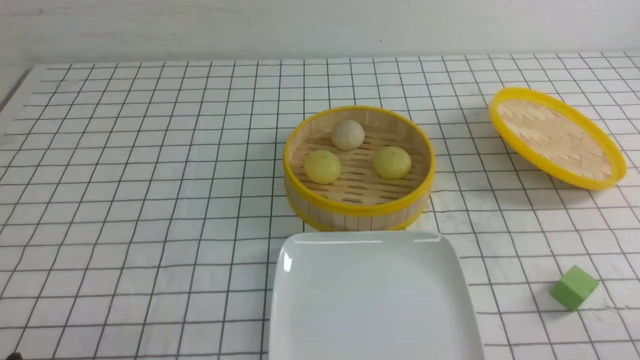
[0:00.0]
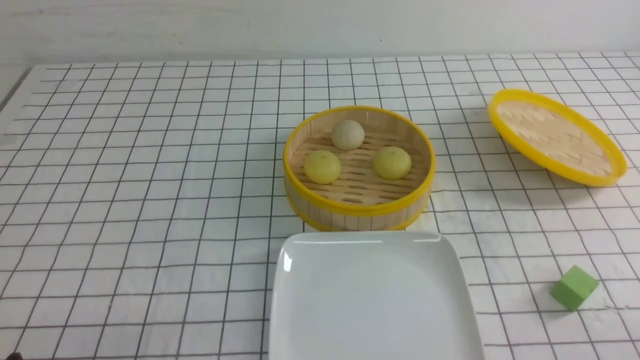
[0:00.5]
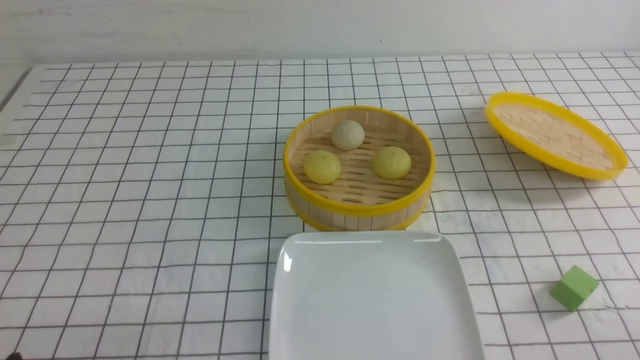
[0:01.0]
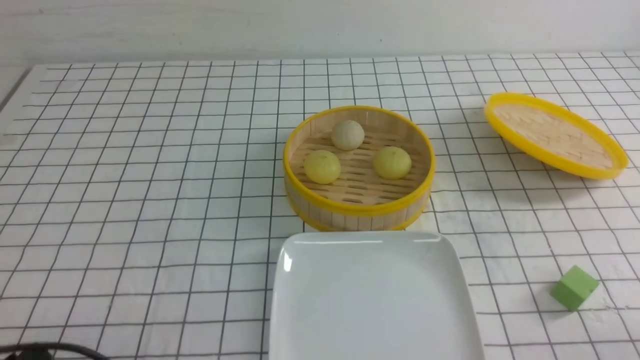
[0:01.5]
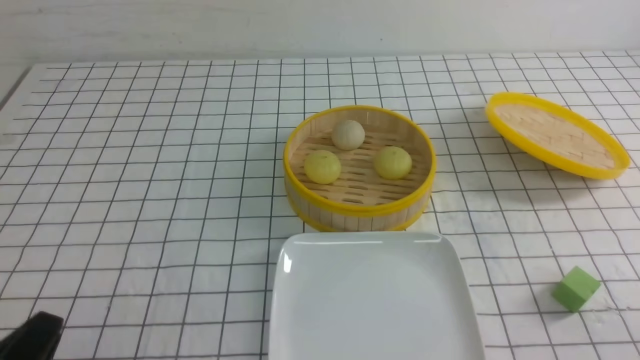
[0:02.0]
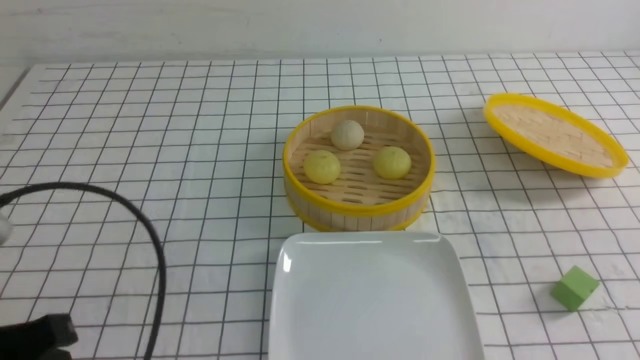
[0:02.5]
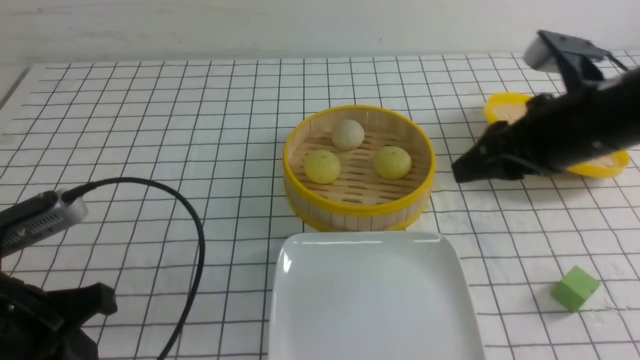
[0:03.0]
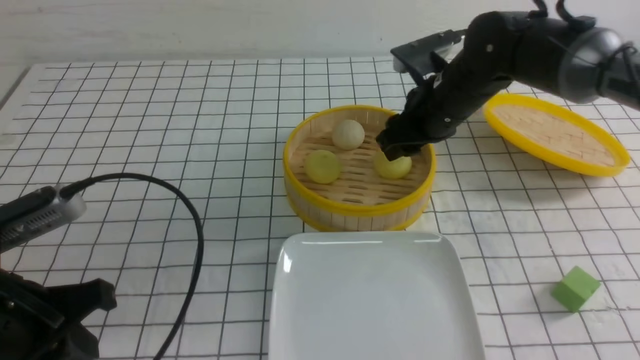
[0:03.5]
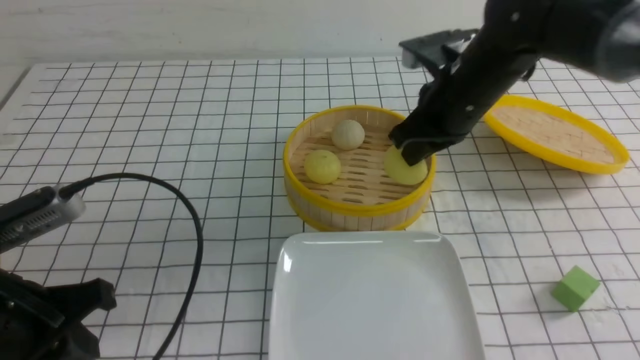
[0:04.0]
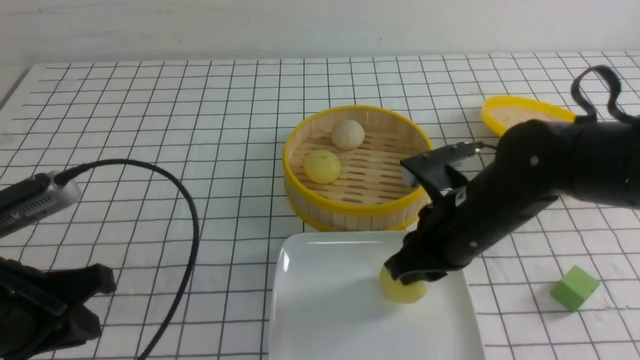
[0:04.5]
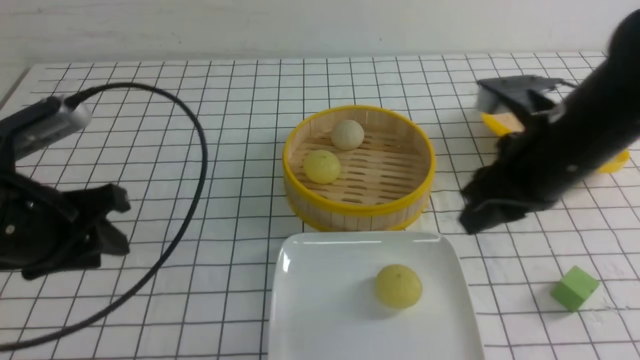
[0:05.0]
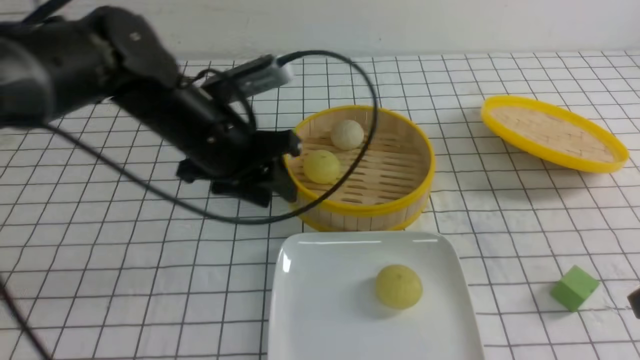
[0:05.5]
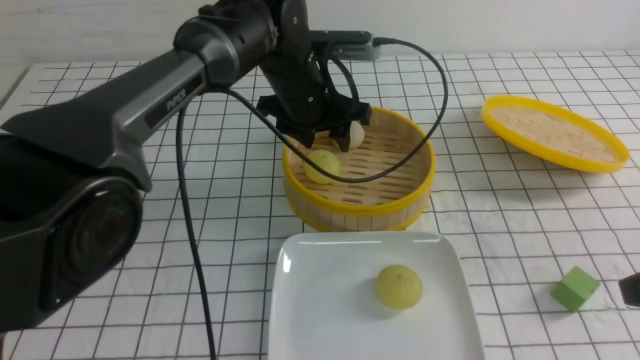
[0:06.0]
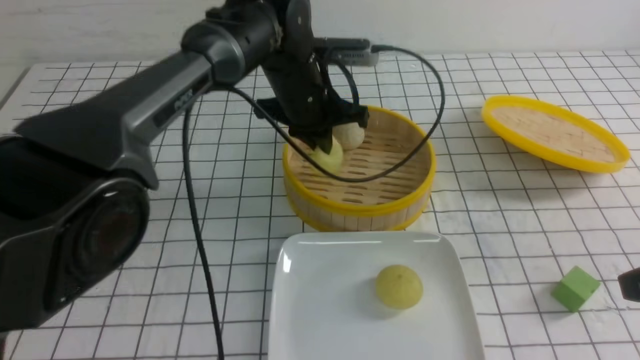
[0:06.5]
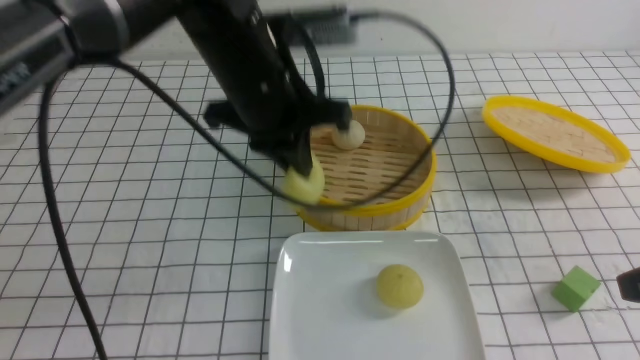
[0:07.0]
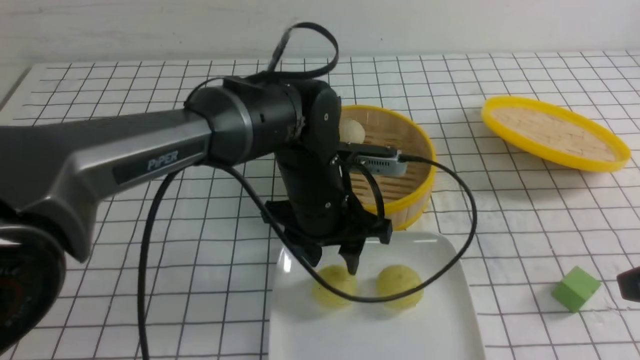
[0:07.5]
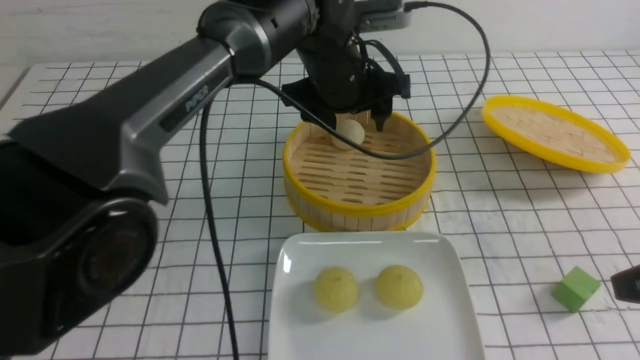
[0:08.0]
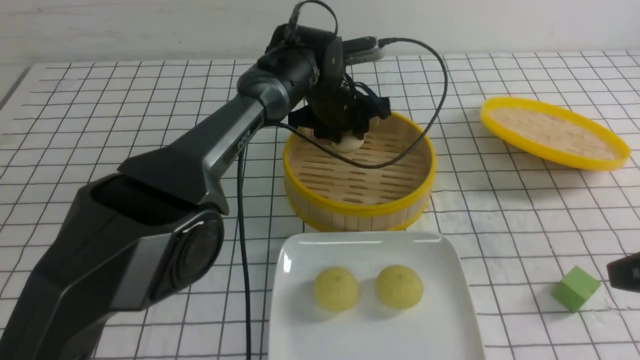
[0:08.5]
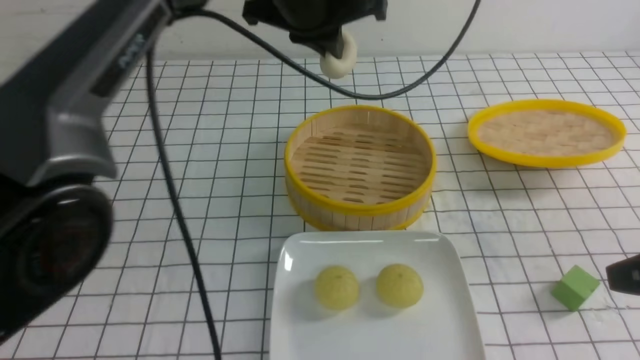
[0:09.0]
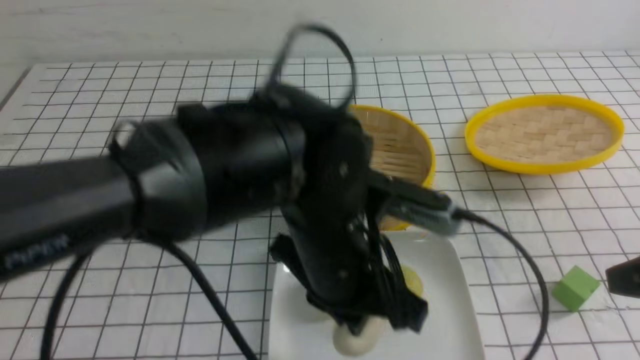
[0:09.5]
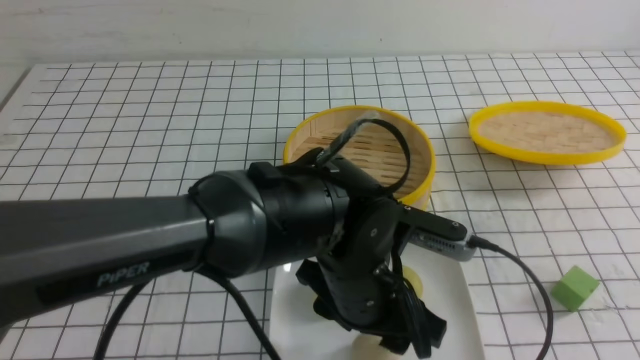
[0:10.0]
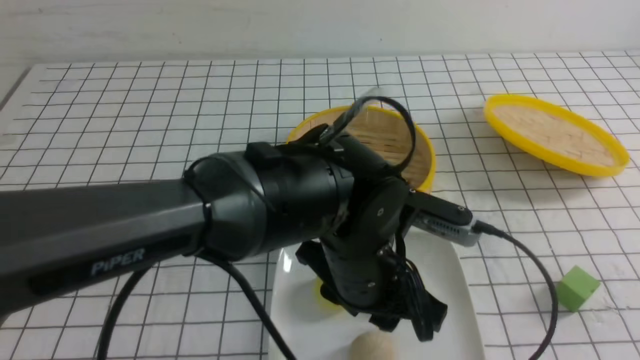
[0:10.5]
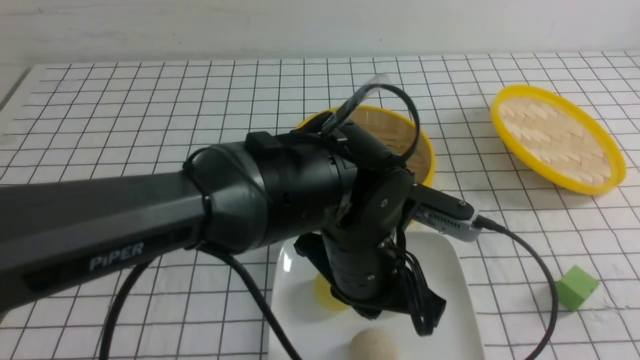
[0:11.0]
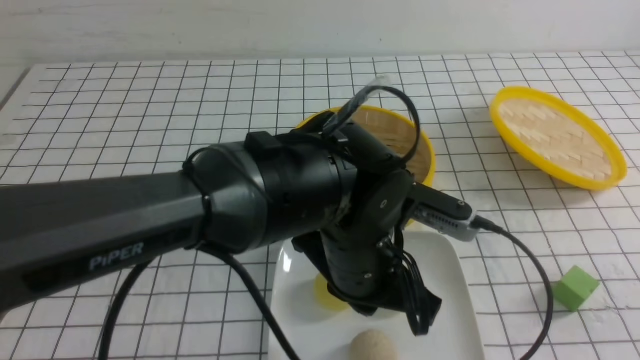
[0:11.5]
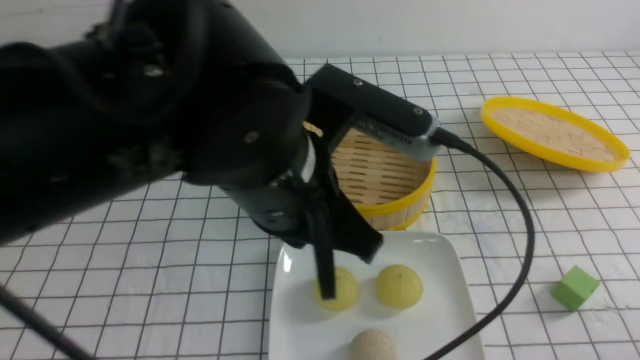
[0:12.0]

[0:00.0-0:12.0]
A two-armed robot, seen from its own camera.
Step, 0:00.0 to 0:03.5: use the right arm to grab the steamed stuffed bun that is closest to it.
Step, 0:04.0 to 0:04.5: use the right arm to put the steamed stuffed bun into the plate.
Step, 0:05.0 to 0:06.0: use the left arm to grab the steamed stuffed bun that is closest to it.
Step, 0:07.0 to 0:07.5: use the left arm to put the steamed stuffed bun into the plate.
Step, 0:08.0 to 0:08.5: use the left arm to grab the steamed stuffed bun that is closest to it.
Step, 0:09.0 to 0:10.0: use the left arm to put the steamed stuffed bun into the plate.
0:00.0 to 0:02.0: The right gripper travels upward by approximately 5 cm. Meanwhile the left gripper shifts by approximately 5 cm.
0:02.0 to 0:04.0: The right gripper travels forward and to the left by about 35 cm, and opens, then closes again, while the left gripper shifts about 10 cm forward.
0:04.0 to 0:06.0: The right gripper heads backward and to the right, covering roughly 25 cm, and opens and closes again; the left gripper travels forward and to the right by some 35 cm, and opens its fingers.
0:06.0 to 0:08.0: The left gripper goes backward and returns, about 10 cm each way, and closes and opens again.
0:08.0 to 0:10.0: The right gripper is displaced backward by approximately 10 cm. Meanwhile the left gripper moves backward, approximately 20 cm, and closes and opens again.
0:10.0 to 0:12.0: The right gripper moves downward, roughly 15 cm. Meanwhile the left gripper is displaced upward and to the left by approximately 15 cm, and closes its fingers.

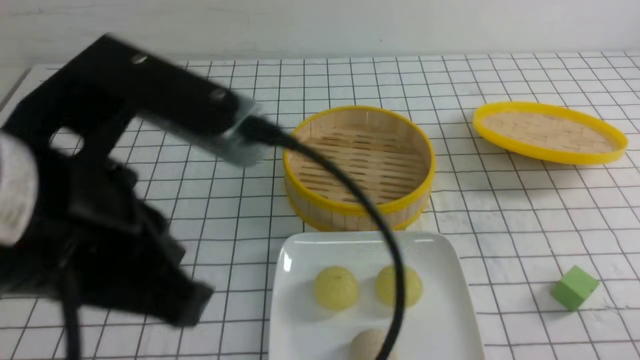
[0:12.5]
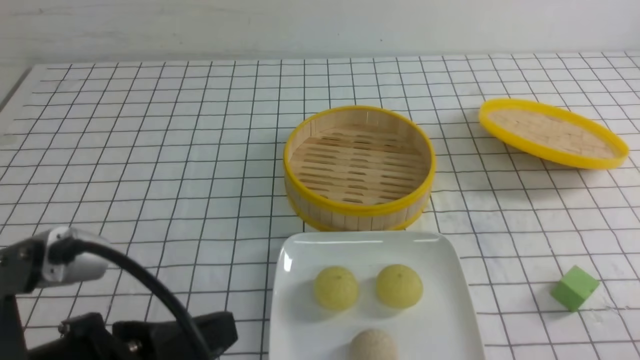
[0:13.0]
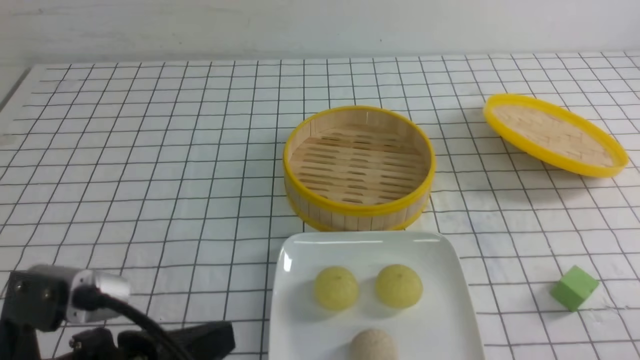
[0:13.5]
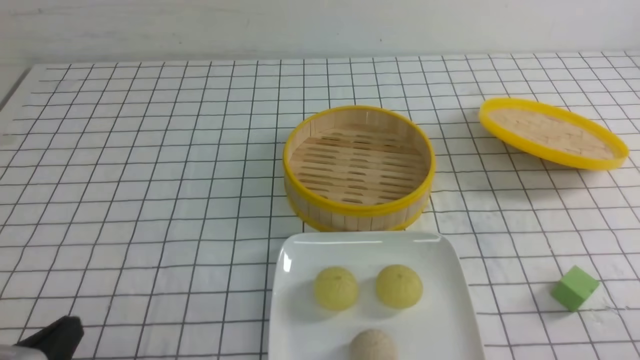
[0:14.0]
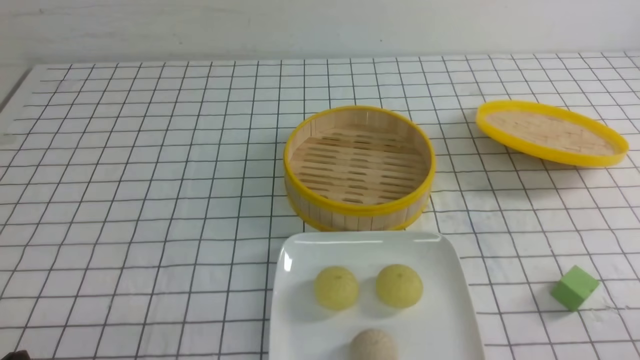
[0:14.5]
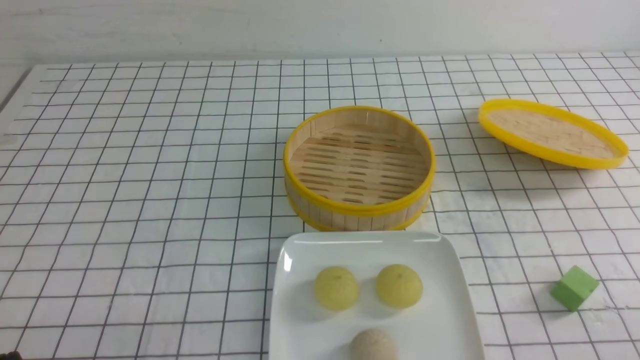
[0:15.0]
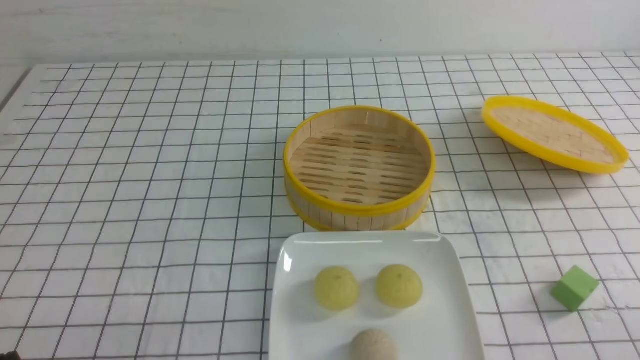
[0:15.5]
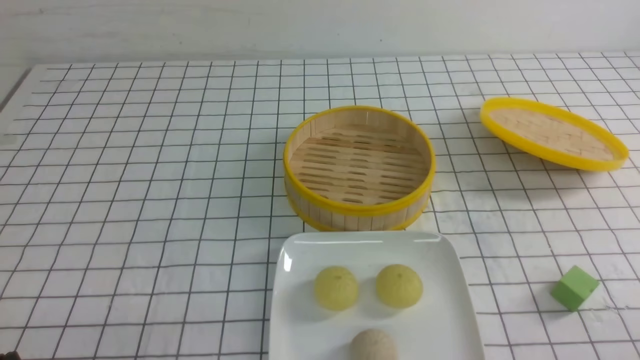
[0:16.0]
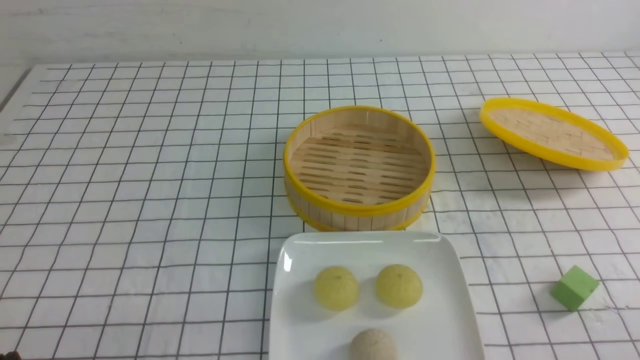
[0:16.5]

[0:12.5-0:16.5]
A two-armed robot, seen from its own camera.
0:12.5 to 0:14.5: The left gripper travels downward and to the left by some 25 cm.
0:14.5 to 0:16.5: Neither gripper changes place.
